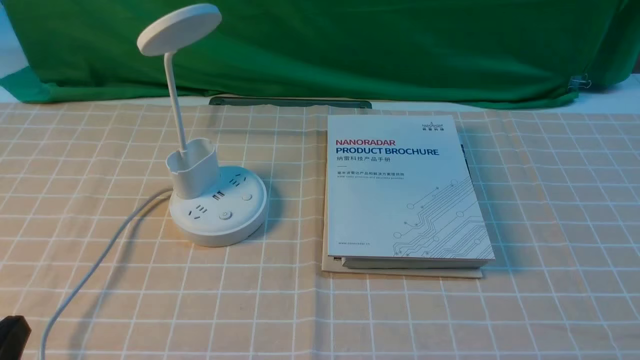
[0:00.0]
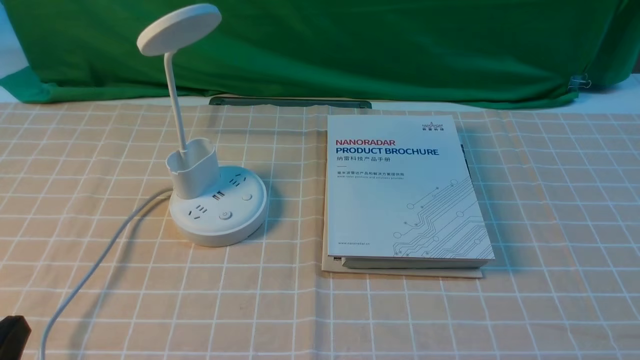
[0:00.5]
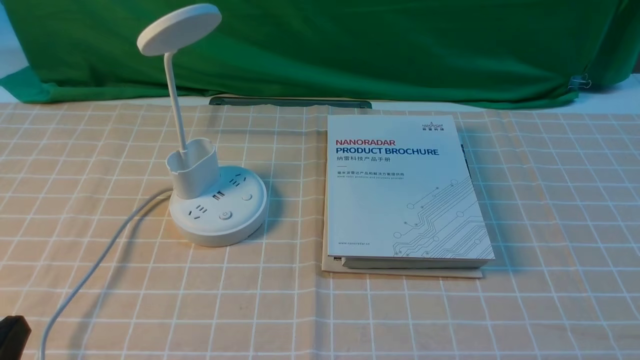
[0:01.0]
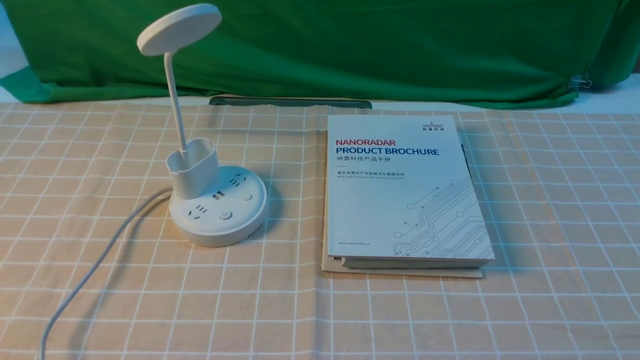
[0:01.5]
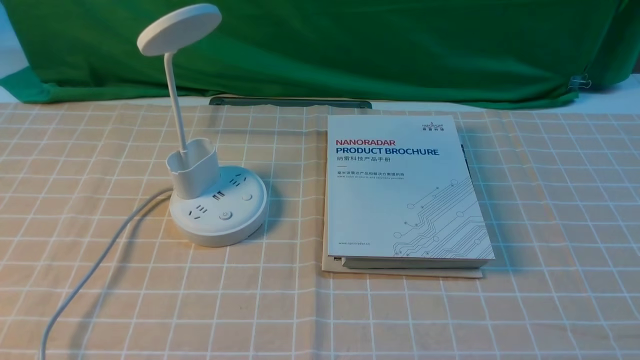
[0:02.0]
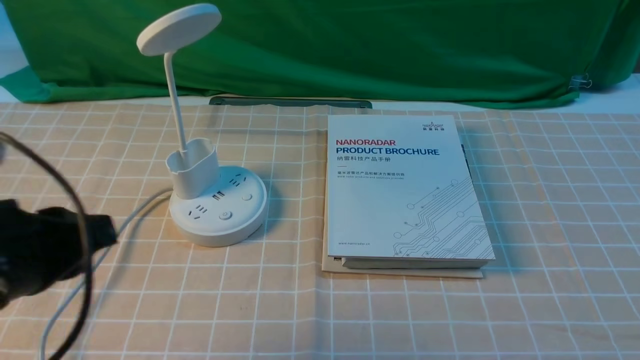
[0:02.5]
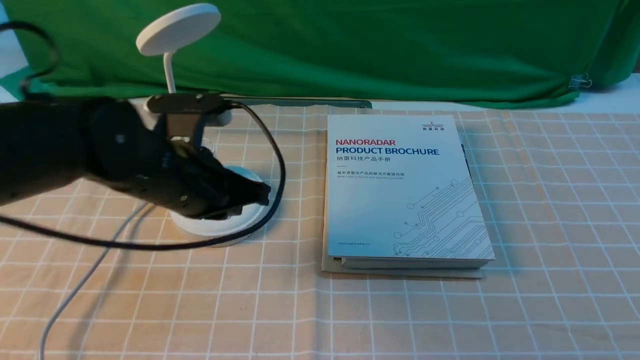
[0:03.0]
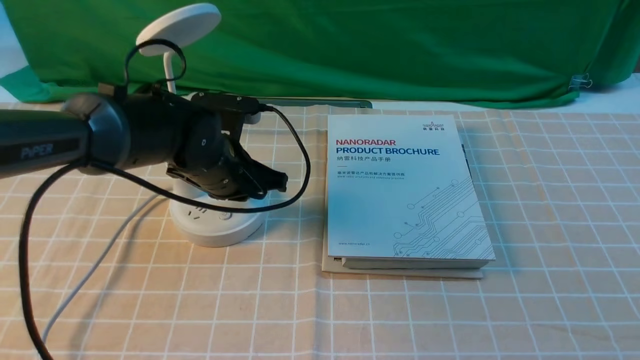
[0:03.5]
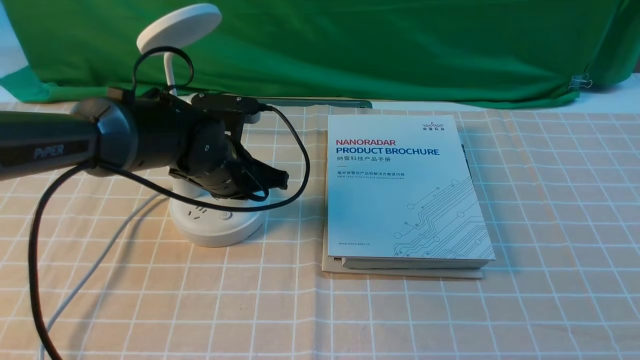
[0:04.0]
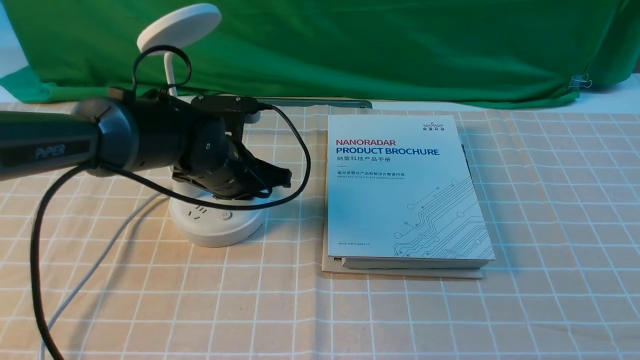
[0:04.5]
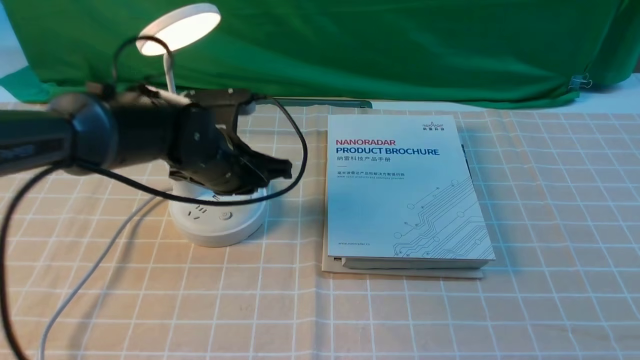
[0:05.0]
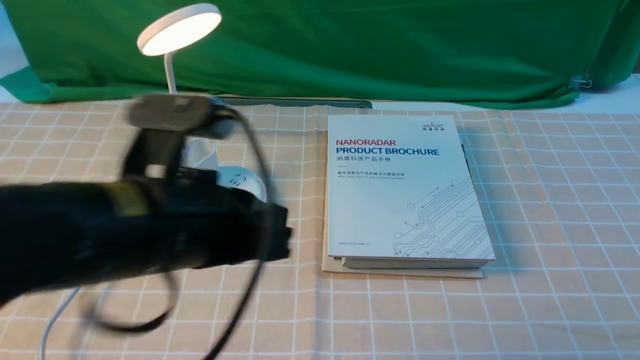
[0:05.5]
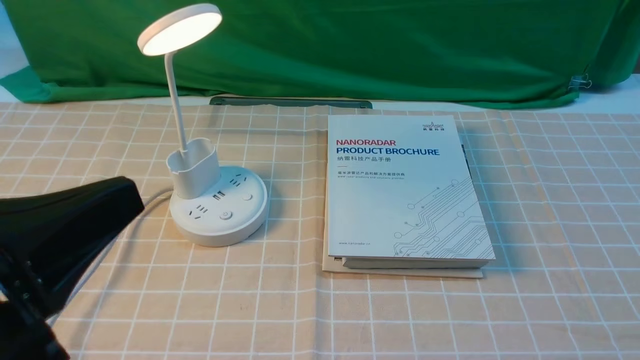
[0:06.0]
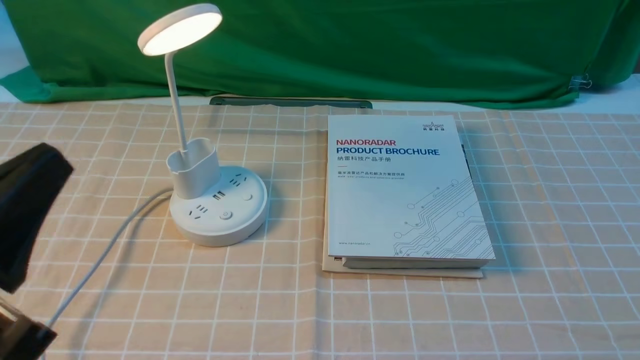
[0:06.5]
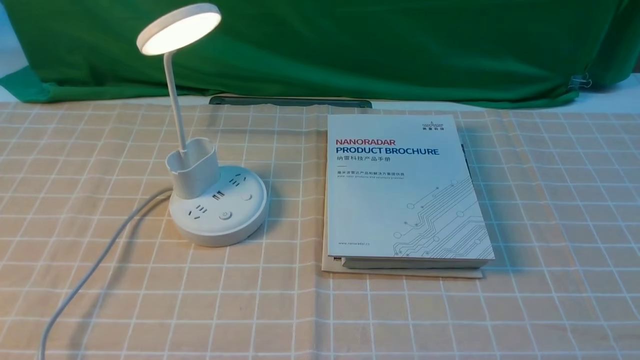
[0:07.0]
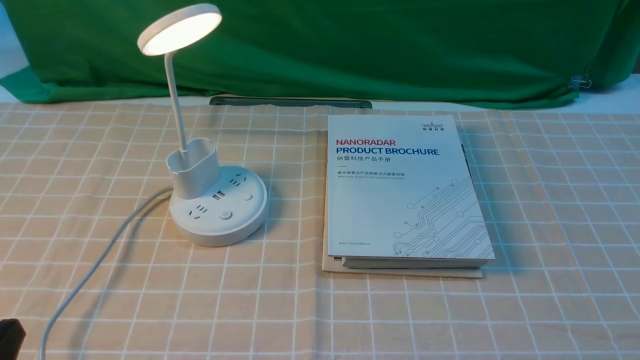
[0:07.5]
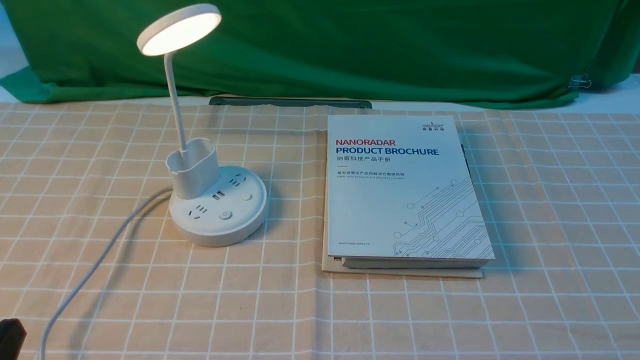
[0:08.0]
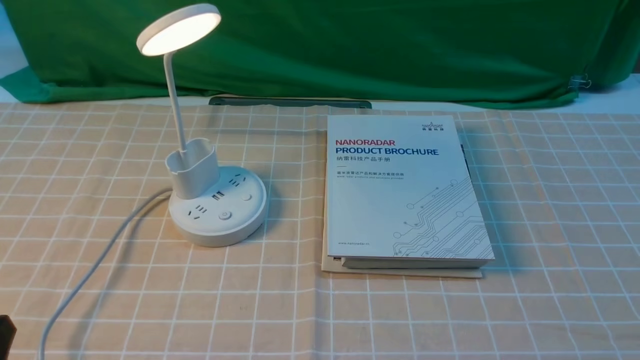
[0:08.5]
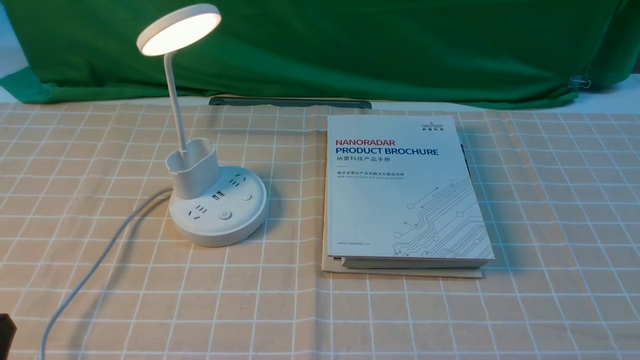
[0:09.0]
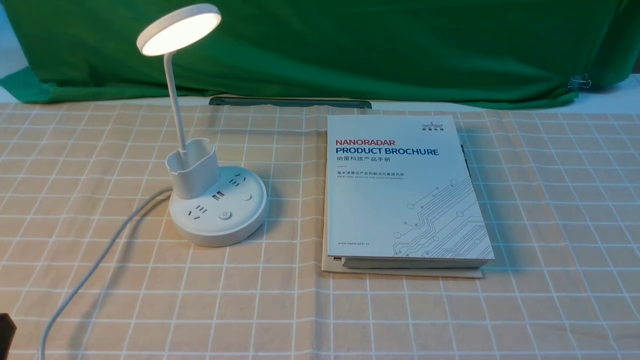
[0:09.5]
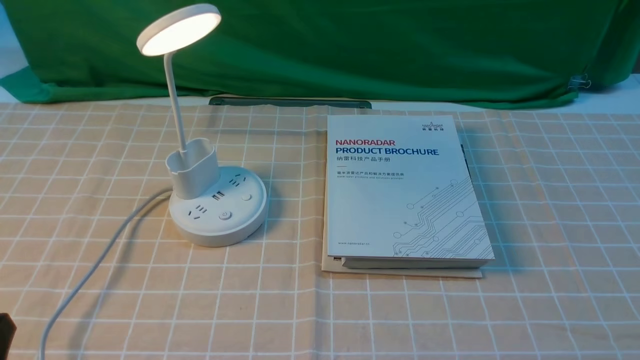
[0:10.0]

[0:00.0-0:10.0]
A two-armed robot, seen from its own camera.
Step, 0:00.0 to 0:05.0: use the left arm to press the button switch on the lamp holder.
0:02.0 to 0:04.0: The left gripper travels forward, downward and to the right by about 40 cm, and closes its fingers.
0:04.0 to 0:06.0: The left gripper shifts about 35 cm backward and upward.
0:06.0 to 0:08.0: The left gripper is displaced downward and to the left by some 15 cm.
0:08.0 to 0:10.0: Both grippers stay about where they are.

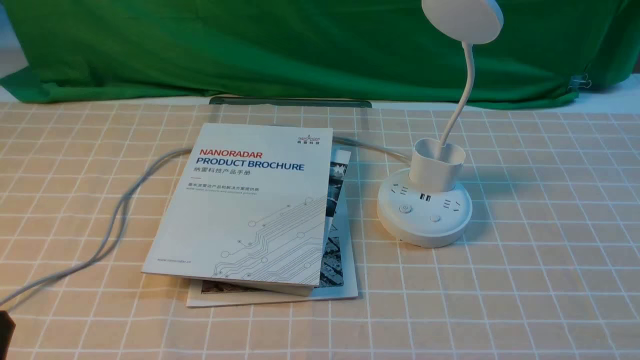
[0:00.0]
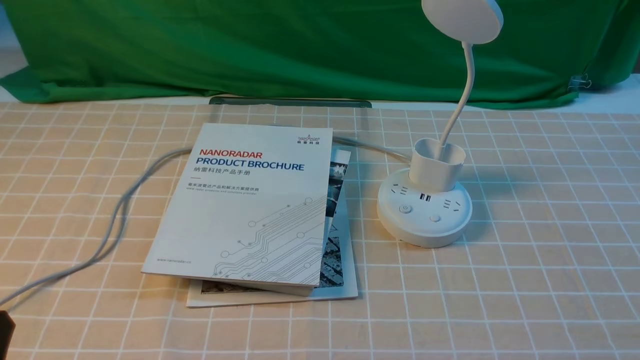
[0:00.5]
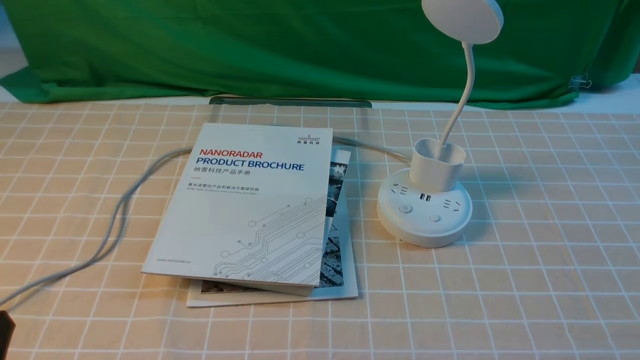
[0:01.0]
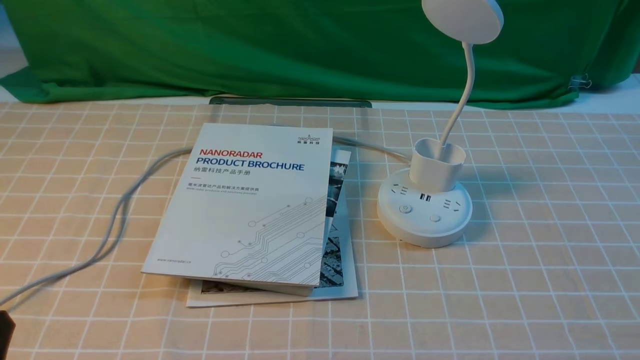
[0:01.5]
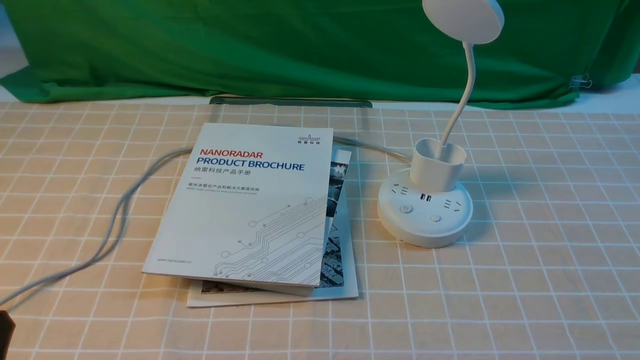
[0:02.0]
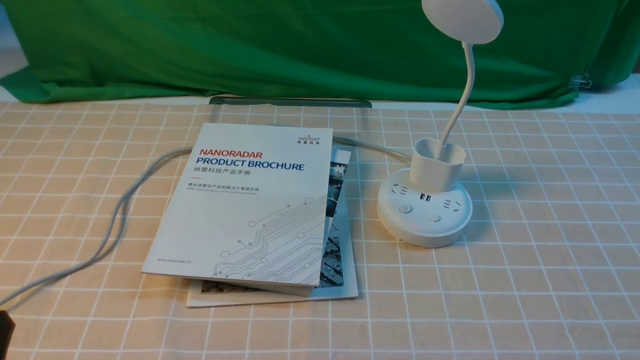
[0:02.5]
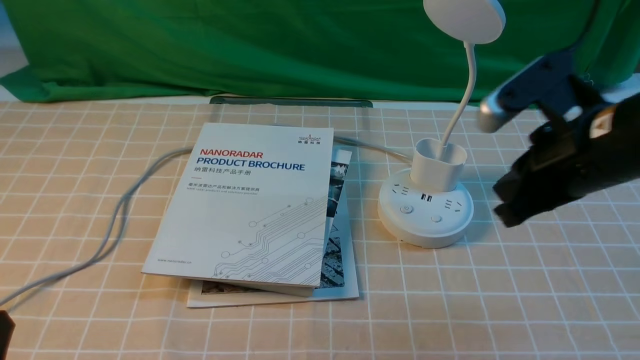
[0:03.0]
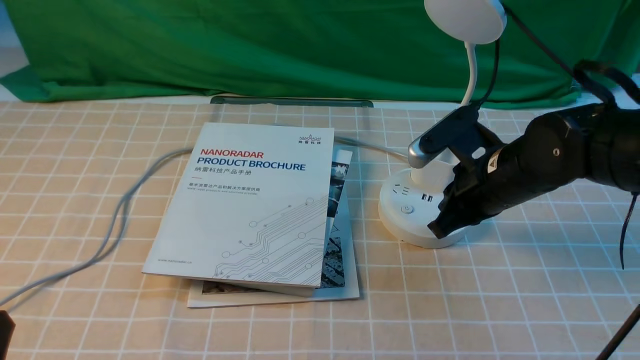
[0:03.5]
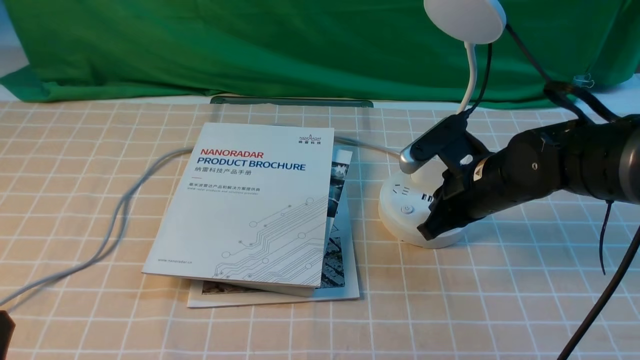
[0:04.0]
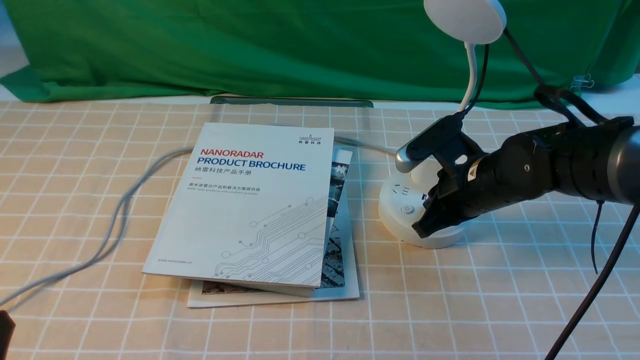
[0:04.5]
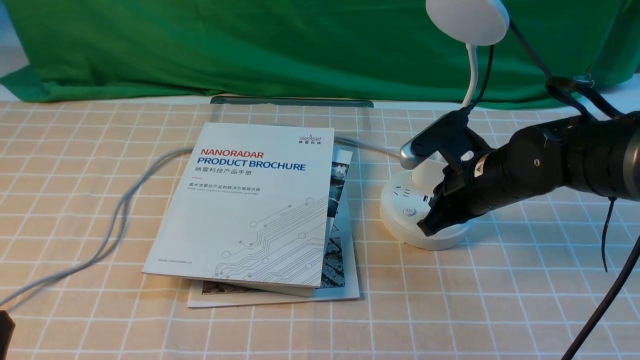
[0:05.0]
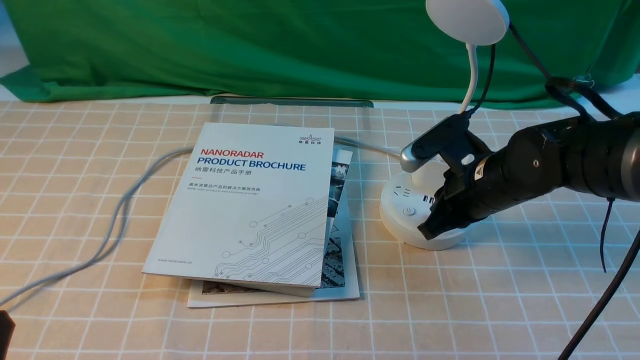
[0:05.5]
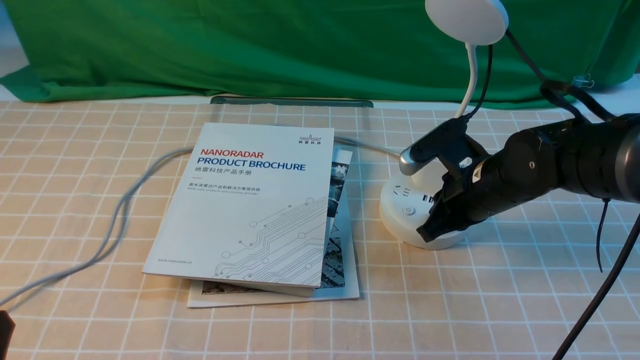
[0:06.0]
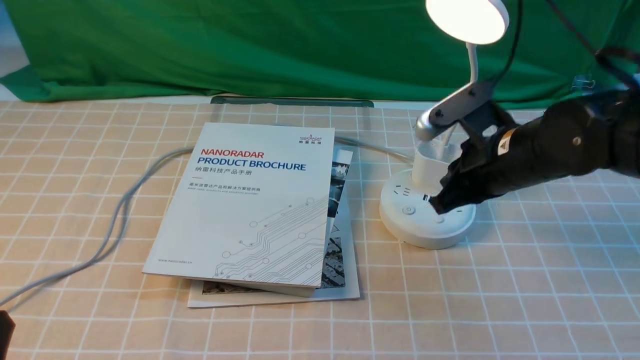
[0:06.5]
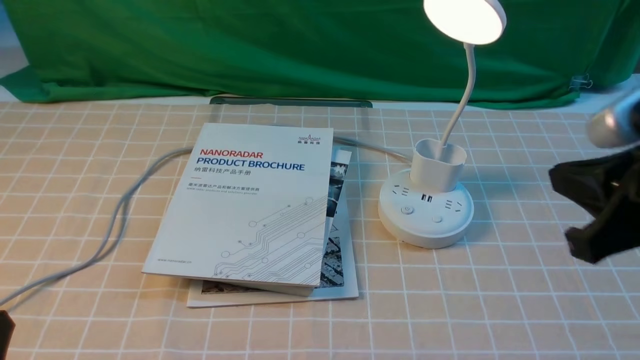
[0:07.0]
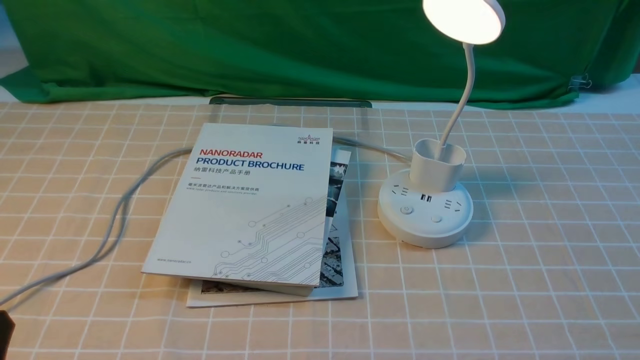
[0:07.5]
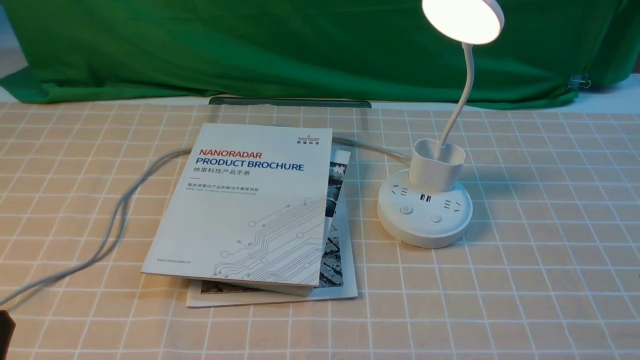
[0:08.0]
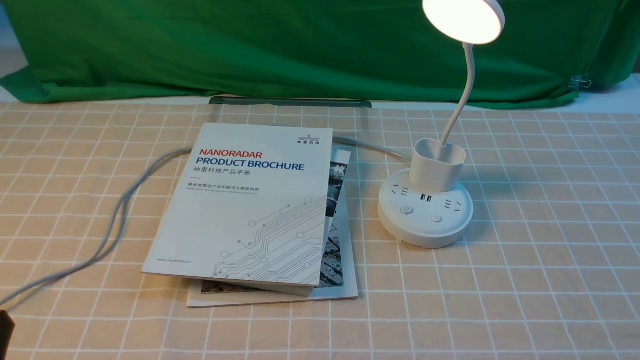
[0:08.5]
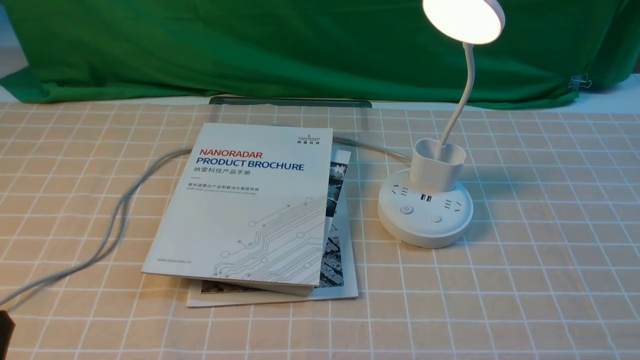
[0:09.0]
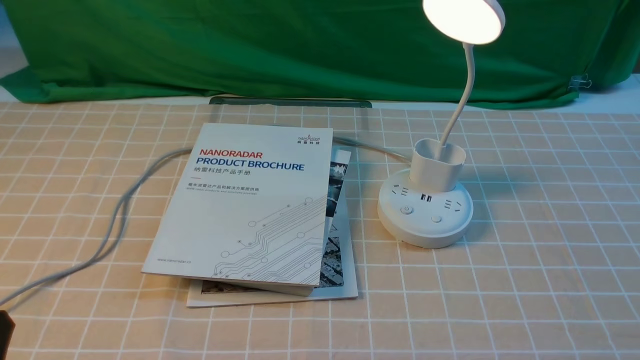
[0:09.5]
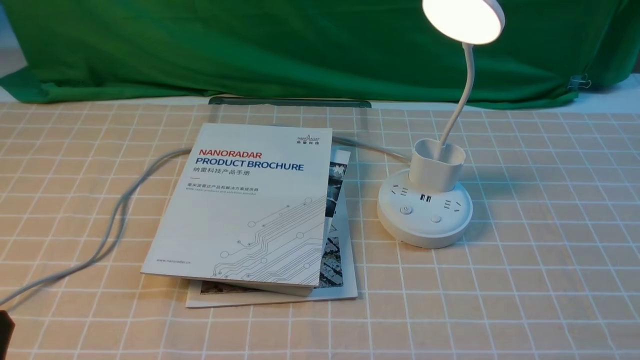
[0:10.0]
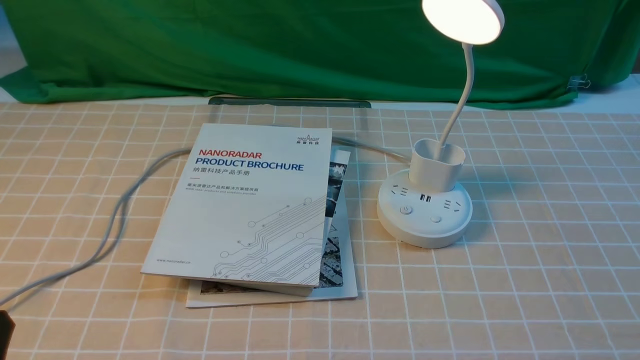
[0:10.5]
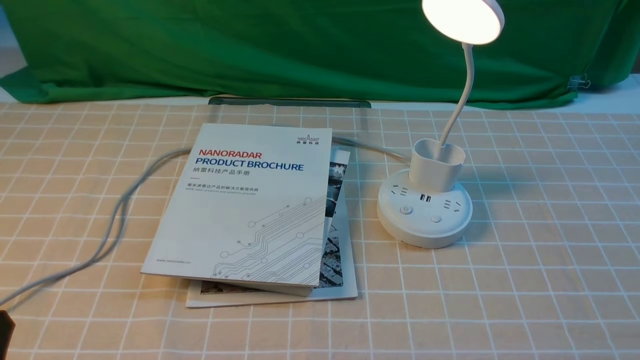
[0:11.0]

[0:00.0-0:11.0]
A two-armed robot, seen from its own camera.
Step, 0:00.0 to 0:06.5: use the right arm to press the button switch on the lamp holder.
0:02.0 to 0:03.5: The right gripper moves forward and to the left, approximately 30 cm, and closes its fingers.
0:03.5 to 0:05.5: There are only small adjustments of the grippers.
0:05.5 to 0:07.5: The right gripper shifts roughly 30 cm backward, upward and to the right.
0:09.0 to 0:11.0: The two grippers keep their place.
